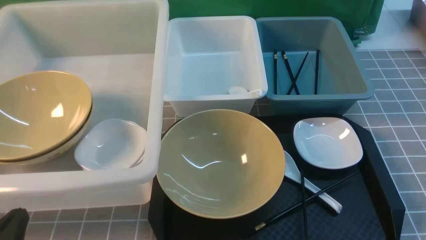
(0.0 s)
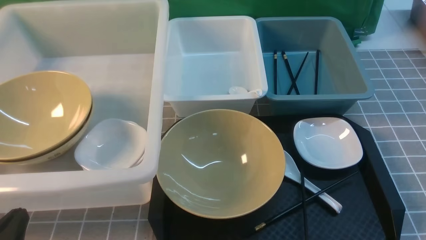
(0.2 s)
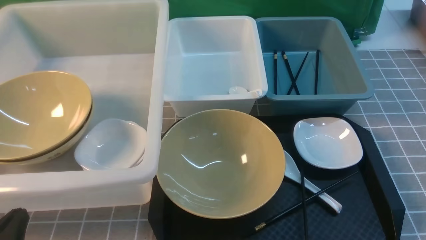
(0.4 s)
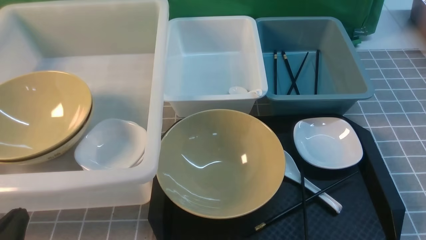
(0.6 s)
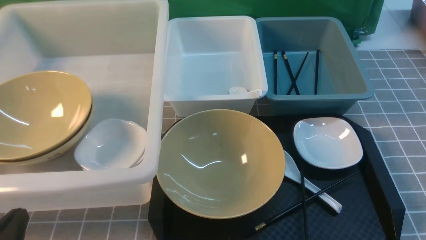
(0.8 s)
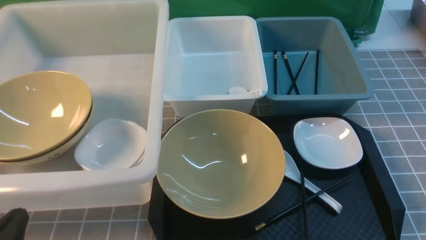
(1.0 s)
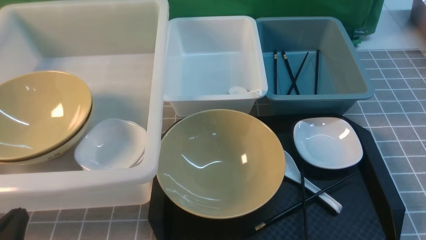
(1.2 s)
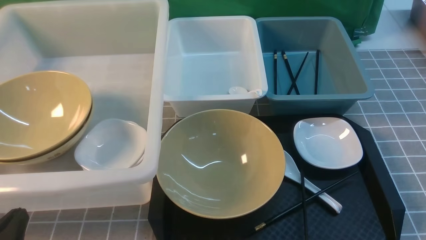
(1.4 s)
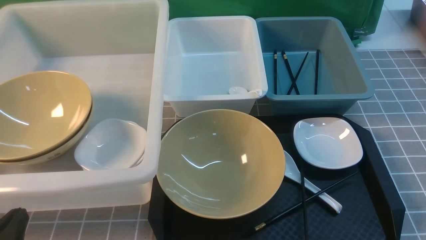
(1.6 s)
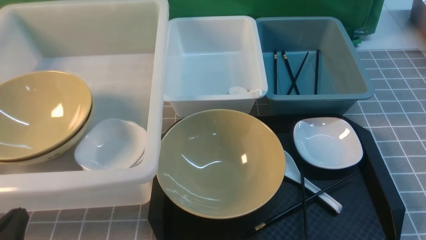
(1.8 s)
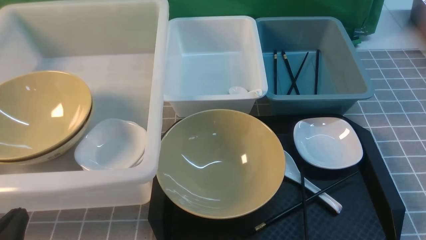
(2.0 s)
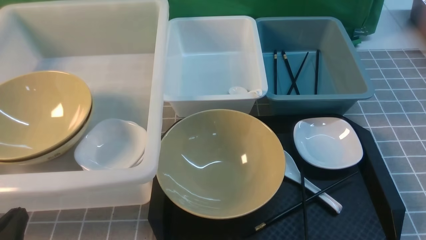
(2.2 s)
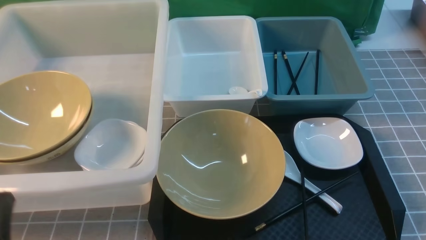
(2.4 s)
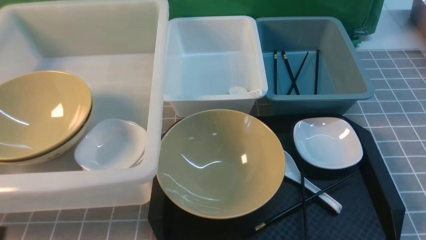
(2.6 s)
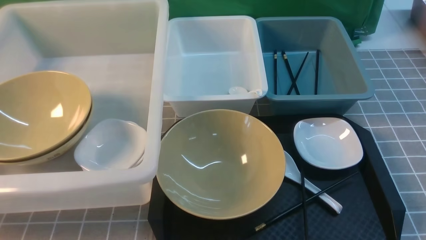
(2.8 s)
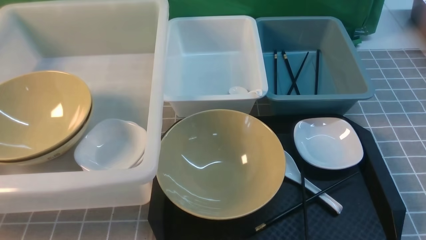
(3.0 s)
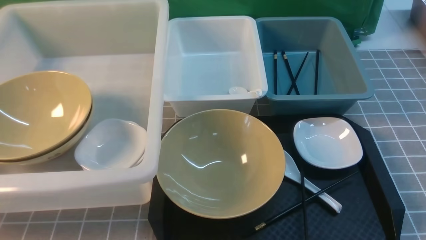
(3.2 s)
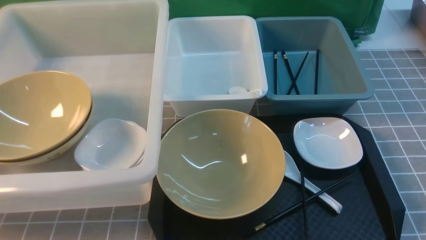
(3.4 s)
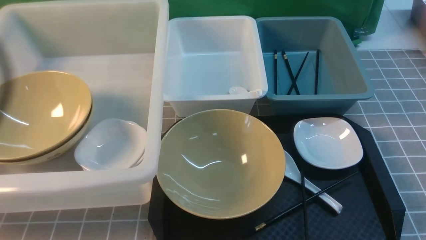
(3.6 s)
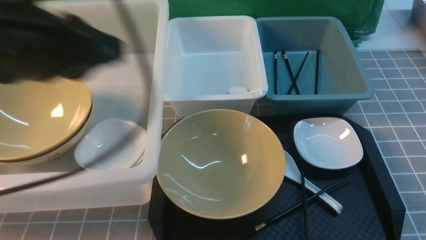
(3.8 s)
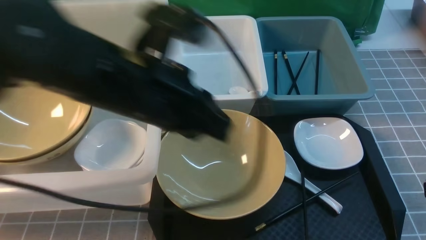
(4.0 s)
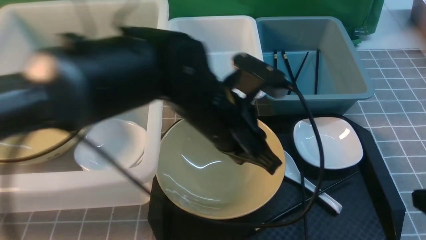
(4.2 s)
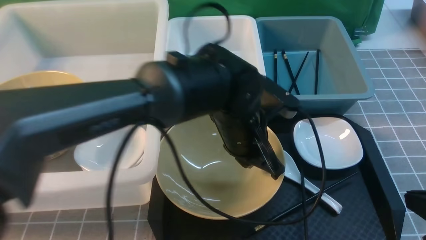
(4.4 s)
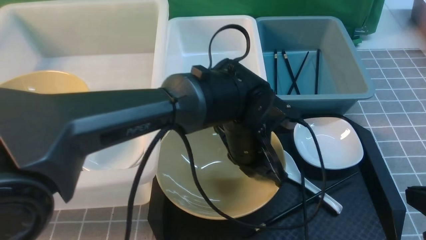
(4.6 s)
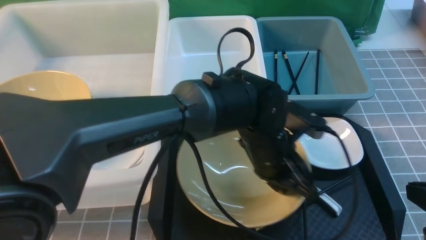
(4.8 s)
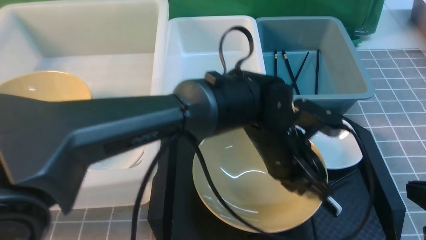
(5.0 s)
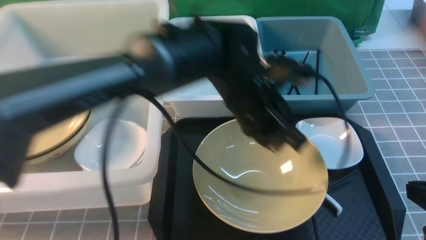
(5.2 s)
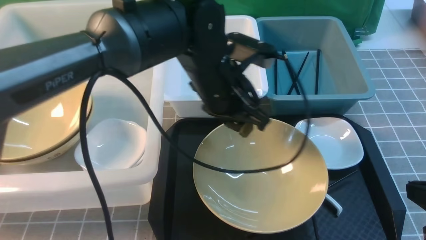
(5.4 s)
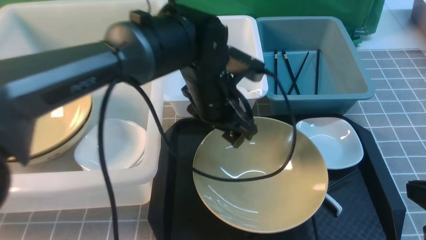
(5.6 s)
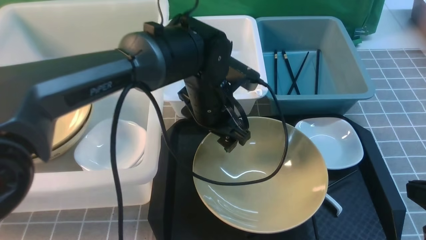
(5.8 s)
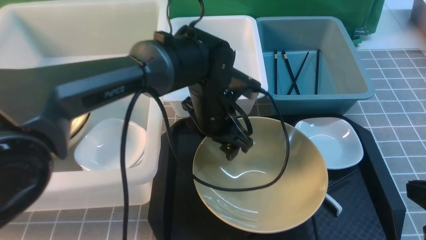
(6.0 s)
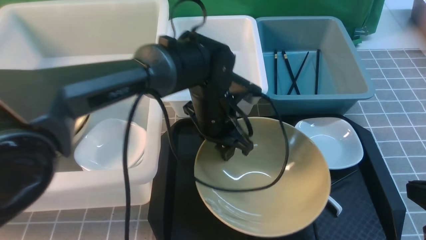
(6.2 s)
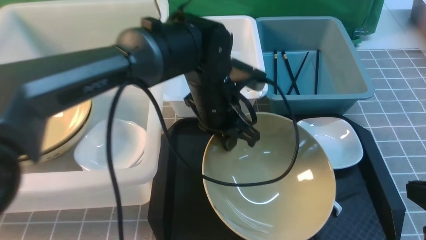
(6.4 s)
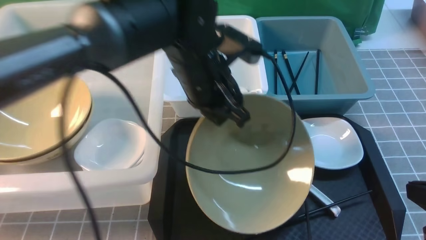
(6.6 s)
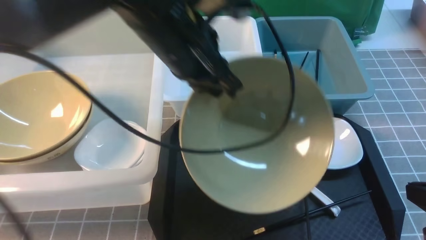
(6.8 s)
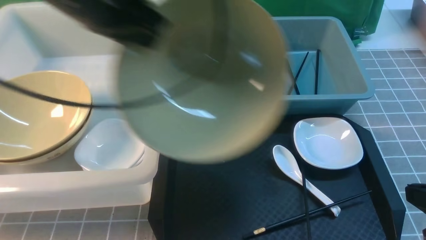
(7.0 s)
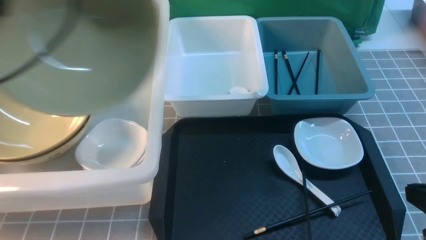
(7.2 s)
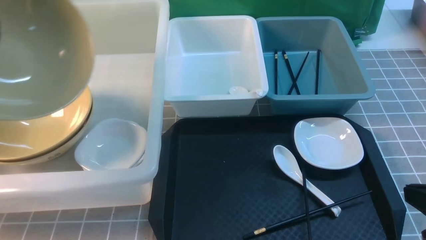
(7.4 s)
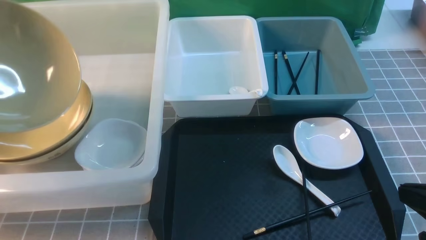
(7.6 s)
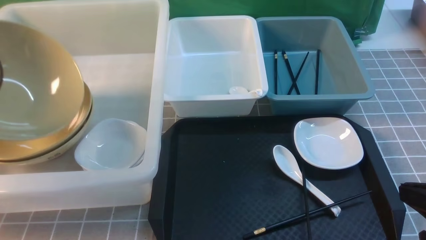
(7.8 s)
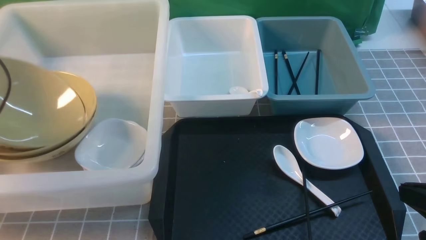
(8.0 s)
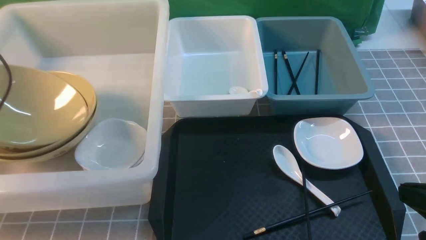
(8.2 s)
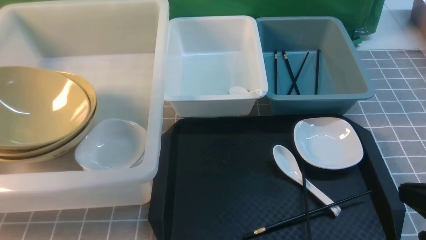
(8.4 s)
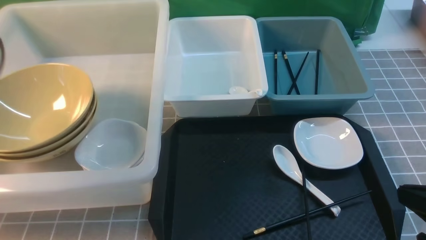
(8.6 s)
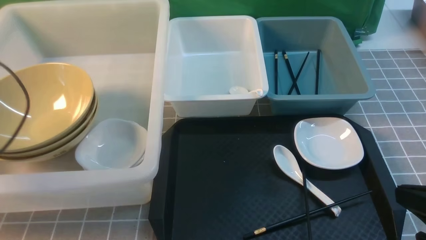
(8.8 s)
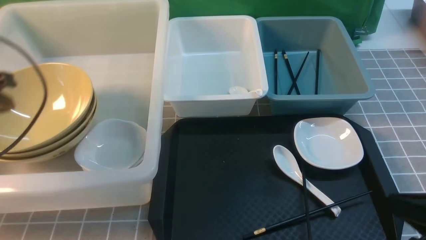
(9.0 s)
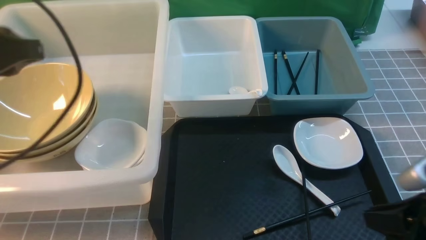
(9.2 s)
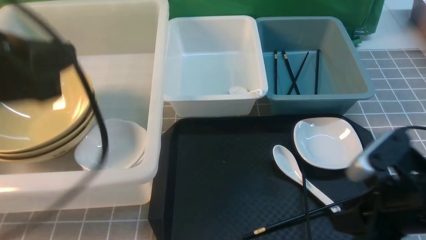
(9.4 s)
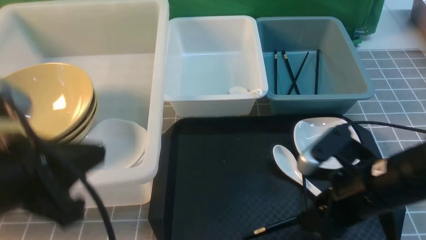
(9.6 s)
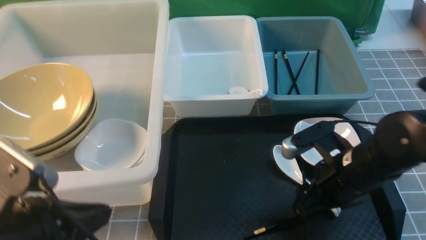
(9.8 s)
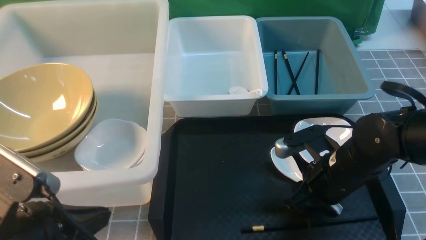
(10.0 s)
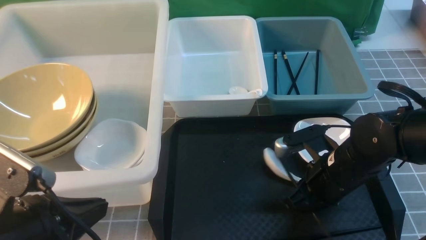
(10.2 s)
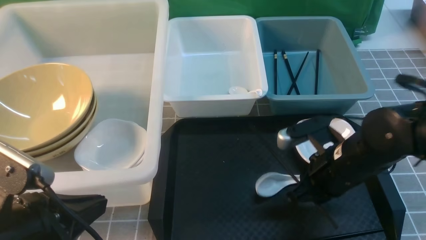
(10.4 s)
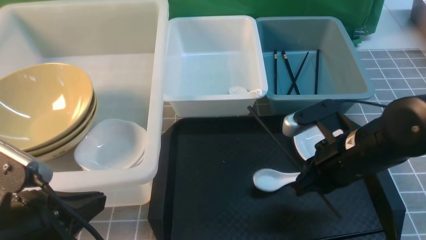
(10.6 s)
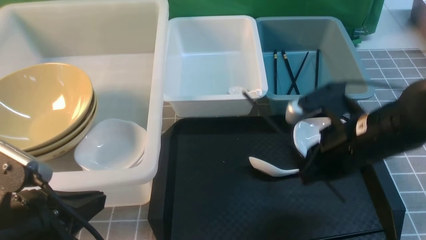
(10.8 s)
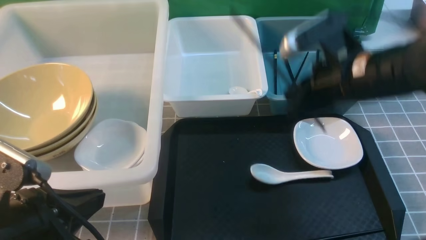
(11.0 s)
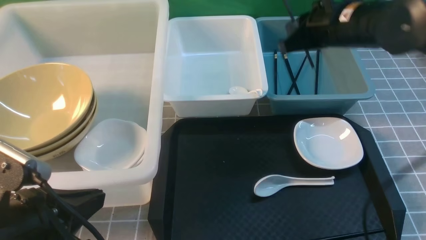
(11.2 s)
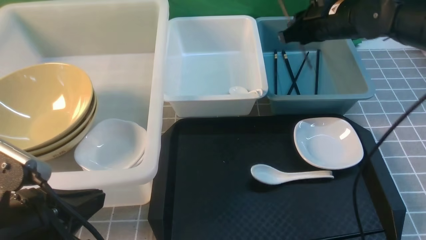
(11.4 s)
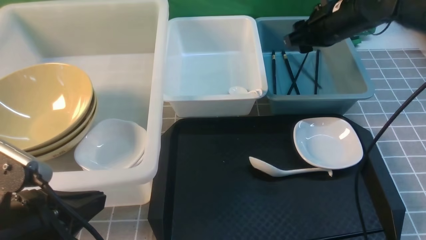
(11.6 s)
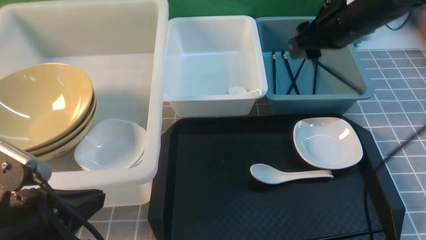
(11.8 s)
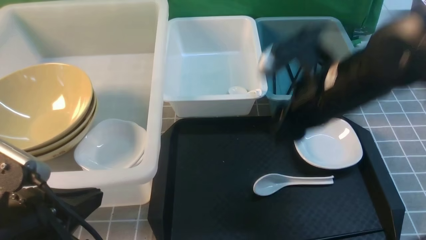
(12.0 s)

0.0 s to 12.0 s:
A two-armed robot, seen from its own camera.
Task of the whole recording: on grey table put chopsticks spoon bowls plates into blue grey white boxes.
Step, 0.0 to 6.4 s: use the left arm to grab the yellow noodle bowl on the left.
Step, 6.6 to 8.2 s: use the left arm to put the noodle bowl into the large storage box on the left.
Step, 8.4 to 10.4 s: use the right arm to grab a chopstick.
Step, 10.6 to 11.8 s: use the right arm to put a chopstick into the small storage box on the right.
0.0 to 1.6 s: Both grippers stay put.
1.6 to 3.0 s: The left gripper is displaced upward by approximately 15 cm.
3.0 to 4.4 s: The right gripper is displaced forward by approximately 5 cm; the left gripper goes some 40 cm to the right and forward.
4.4 to 6.0 s: The left gripper goes approximately 5 cm forward, and opens.
6.0 to 7.6 s: The left gripper moves to the left, some 40 cm, and closes its fingers.
7.6 to 9.0 s: The left gripper heads to the right, covering about 5 cm, and opens and closes again.
9.0 to 10.4 s: The right gripper moves forward, to the left and downward, roughly 15 cm, and opens, then closes once more. The left gripper travels backward, to the right and downward by roughly 20 cm.
10.4 to 12.0 s: The right gripper goes approximately 10 cm upward, moves roughly 15 cm forward and comes back, and opens up.

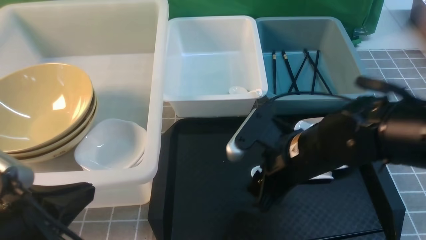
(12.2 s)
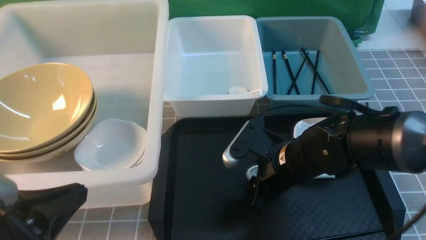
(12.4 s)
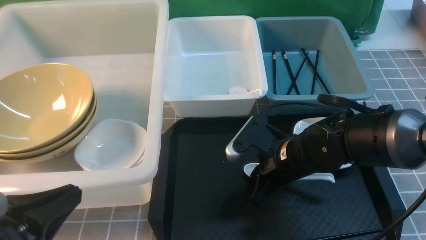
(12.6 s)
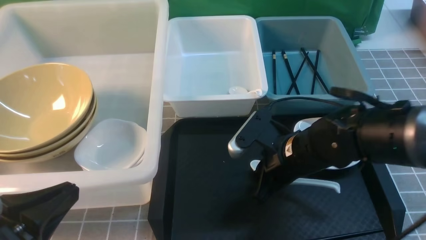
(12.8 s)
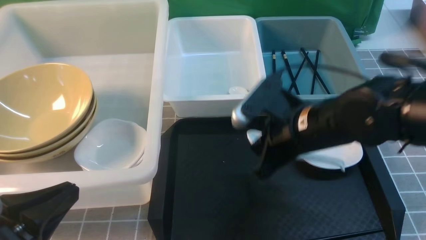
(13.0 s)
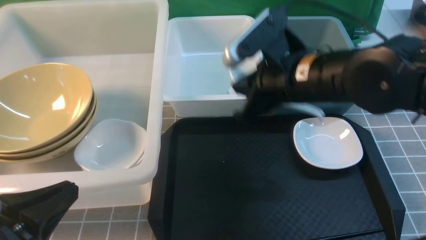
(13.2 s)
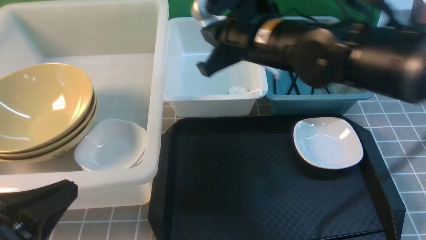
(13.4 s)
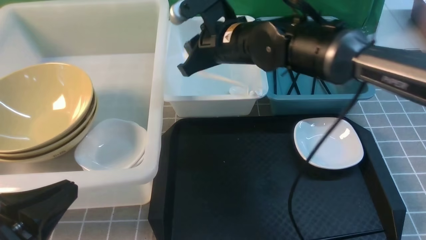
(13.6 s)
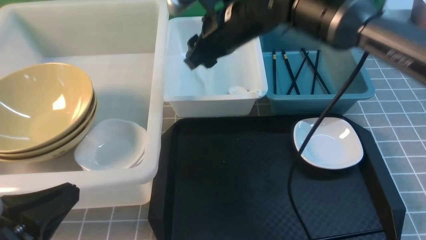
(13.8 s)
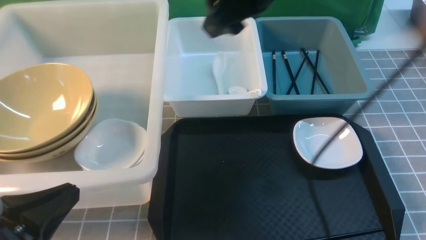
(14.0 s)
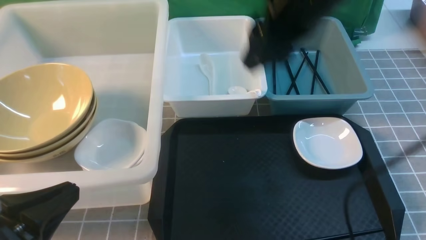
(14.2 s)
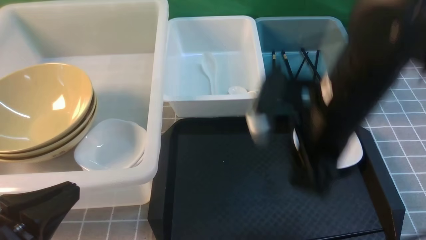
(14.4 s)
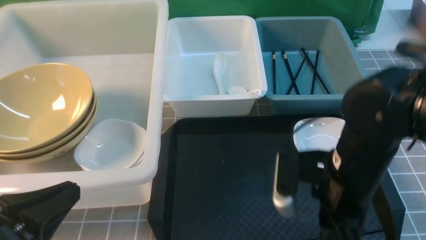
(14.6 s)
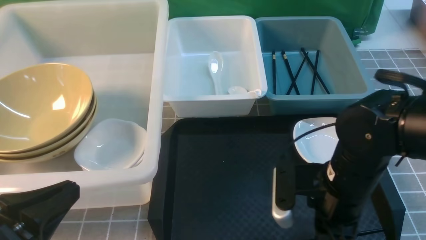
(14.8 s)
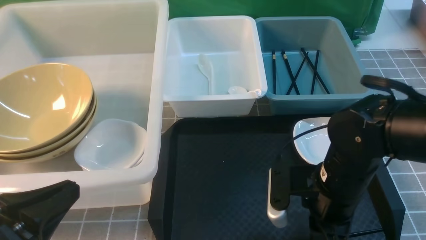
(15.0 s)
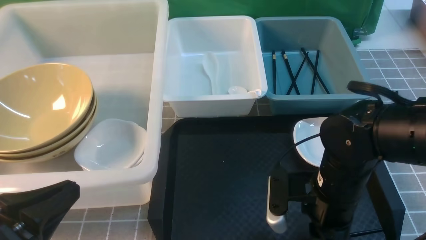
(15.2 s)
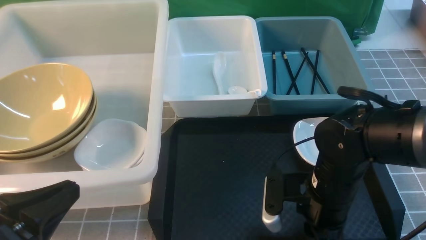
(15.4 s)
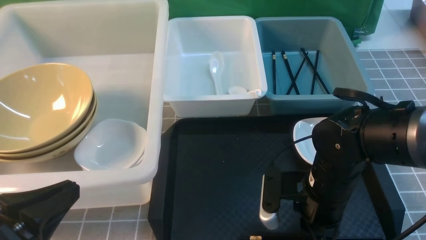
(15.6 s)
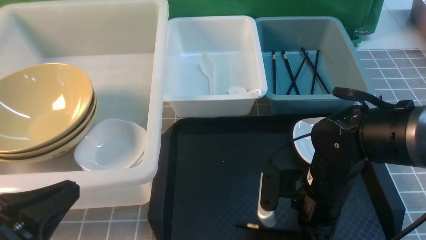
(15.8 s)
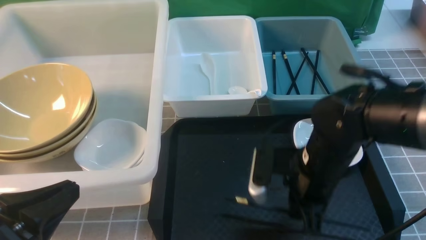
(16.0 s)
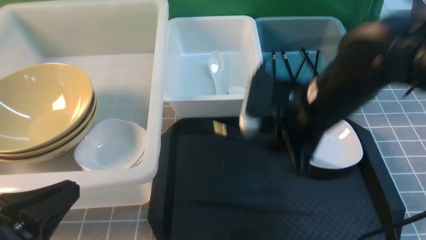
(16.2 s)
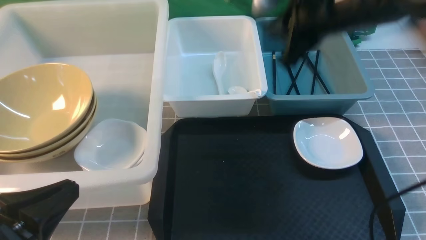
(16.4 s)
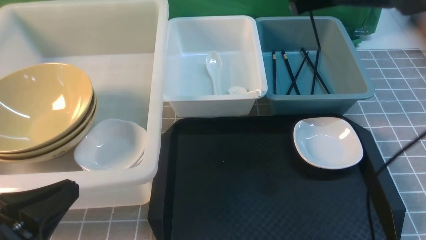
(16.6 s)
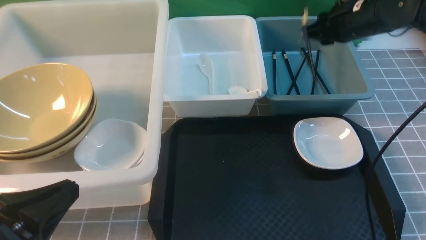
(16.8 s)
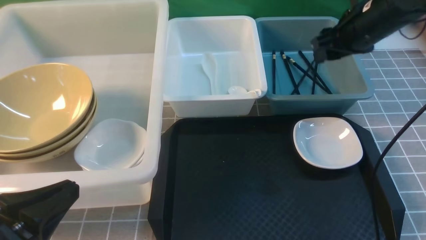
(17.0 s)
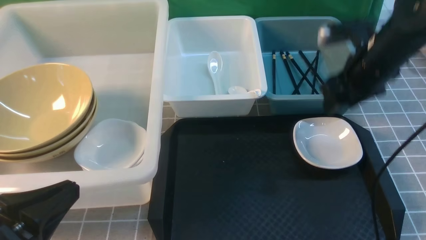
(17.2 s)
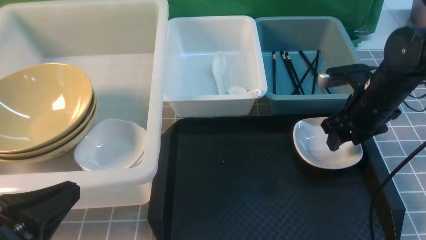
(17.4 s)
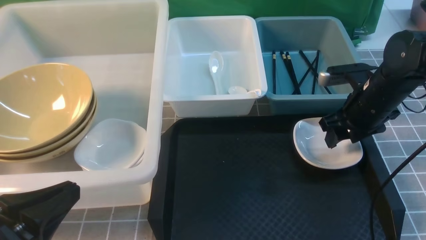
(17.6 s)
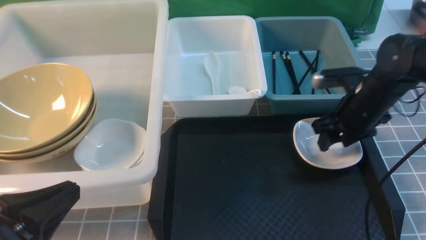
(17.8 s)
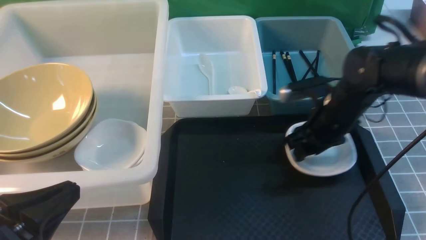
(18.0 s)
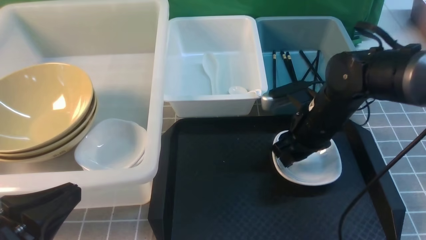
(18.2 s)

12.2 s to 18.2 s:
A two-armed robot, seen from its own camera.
Task of the whole recording: on grey table put chopsticks spoon bowls plates into blue grey white boxes.
Step, 12.2 to 12.8 s: use the right arm to grab the soup spoon in the middle.
Step, 13.0 to 13.8 s: use the right arm to put the soup spoon into the small storage box in the middle.
Step, 14.0 to 16.2 s: use the right arm to grab a chopstick.
Step, 16.4 to 17.0 s: use the right arm to put a chopstick into the small storage box on the right.
12.2 to 13.8 s: The right gripper goes roughly 20 cm upward, forward and to the left, and closes and opens again.
13.8 to 15.2 s: The right gripper goes about 25 cm downward, backward and to the right.
15.2 to 16.6 s: The right gripper travels forward and upward by some 25 cm.
16.6 to 18.2 s: The right gripper is displaced downward and backward by about 15 cm, and opens up.
